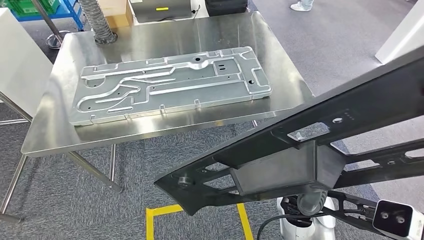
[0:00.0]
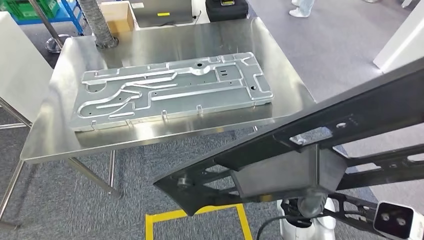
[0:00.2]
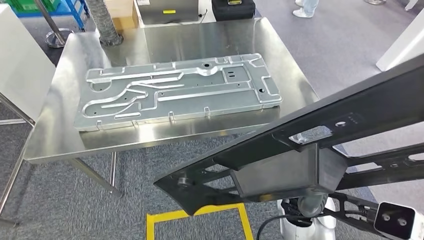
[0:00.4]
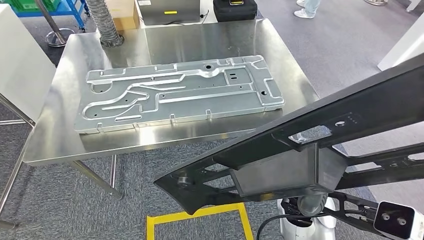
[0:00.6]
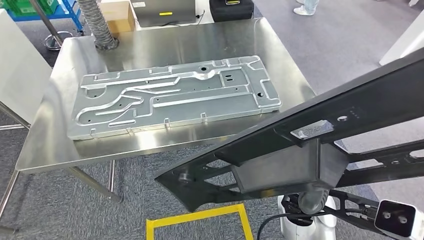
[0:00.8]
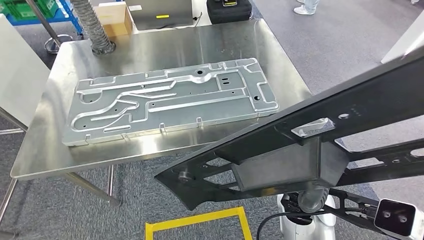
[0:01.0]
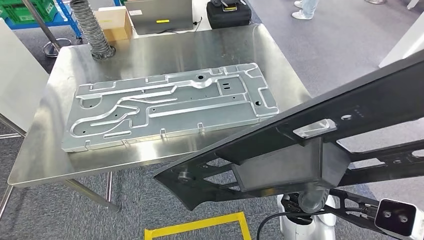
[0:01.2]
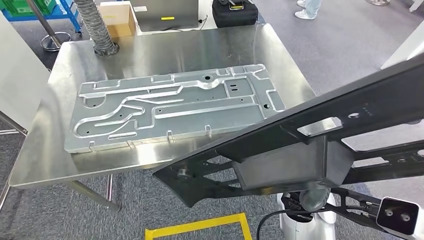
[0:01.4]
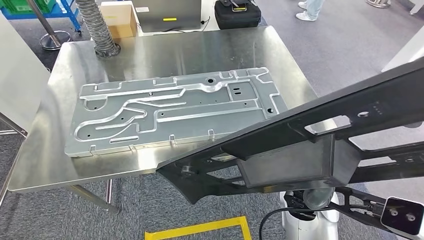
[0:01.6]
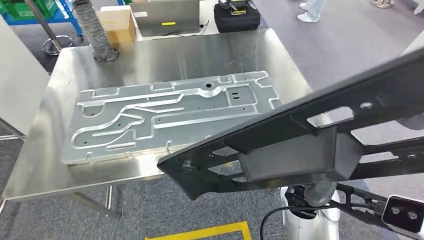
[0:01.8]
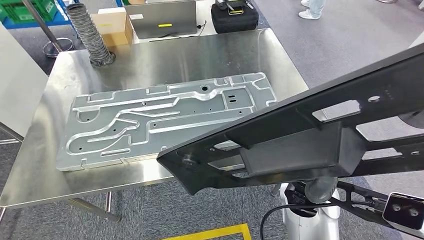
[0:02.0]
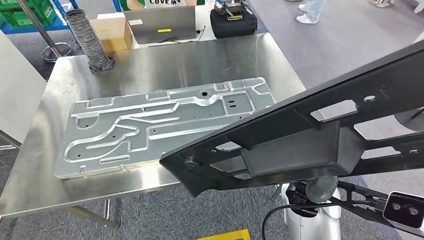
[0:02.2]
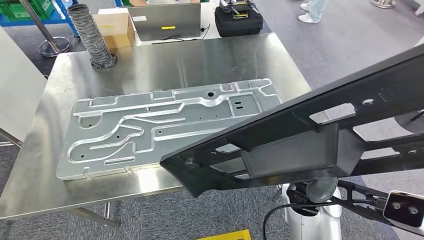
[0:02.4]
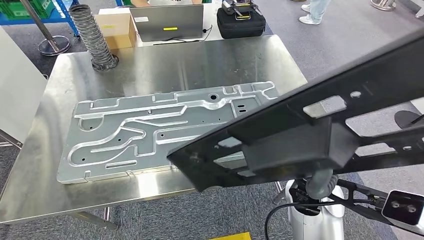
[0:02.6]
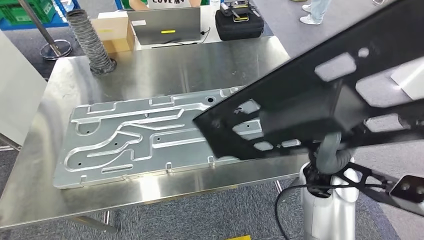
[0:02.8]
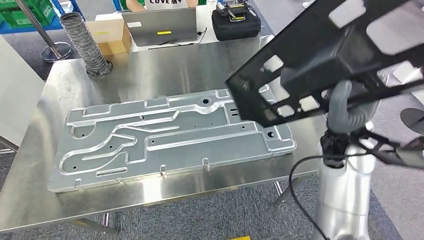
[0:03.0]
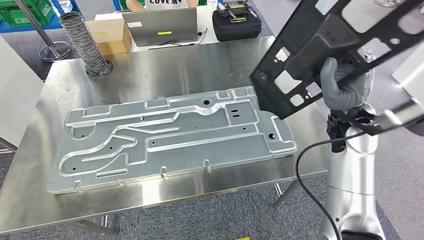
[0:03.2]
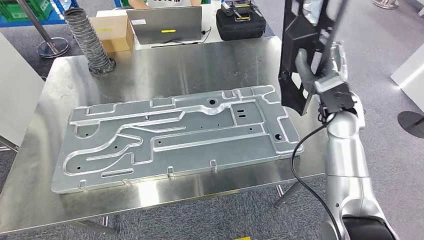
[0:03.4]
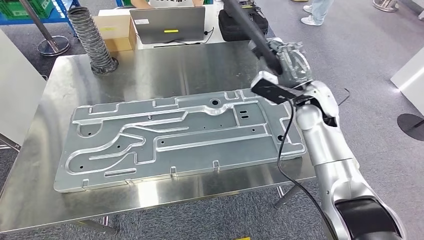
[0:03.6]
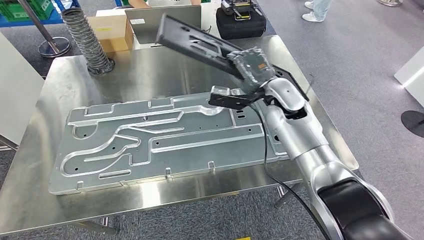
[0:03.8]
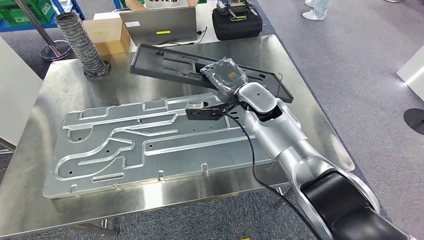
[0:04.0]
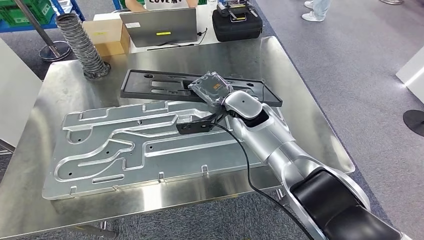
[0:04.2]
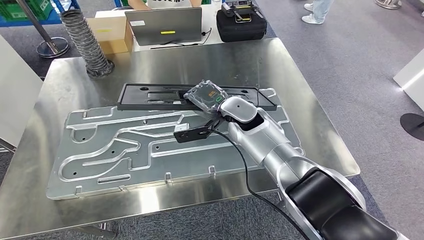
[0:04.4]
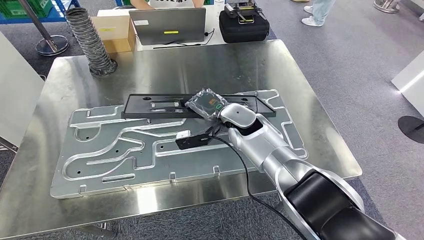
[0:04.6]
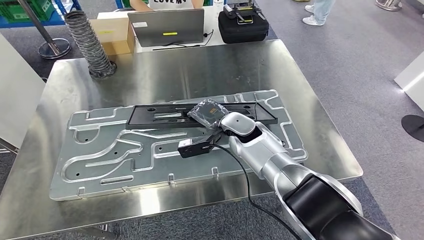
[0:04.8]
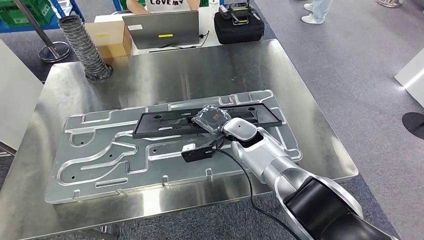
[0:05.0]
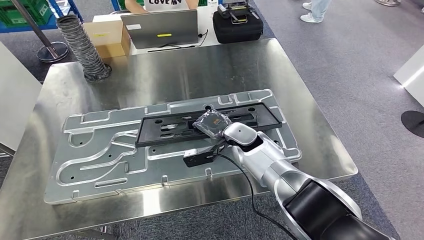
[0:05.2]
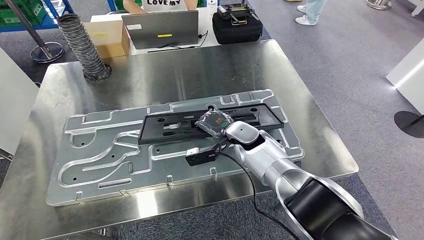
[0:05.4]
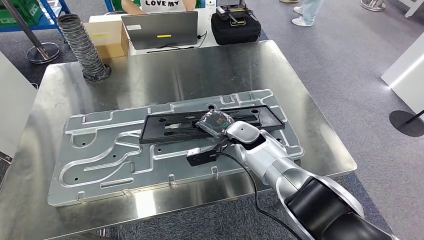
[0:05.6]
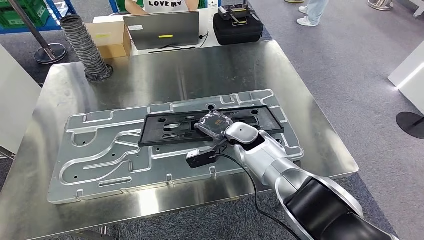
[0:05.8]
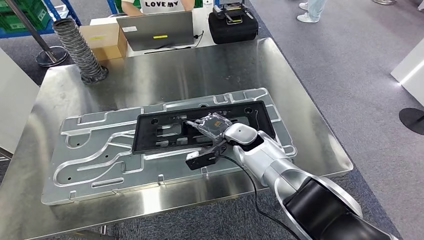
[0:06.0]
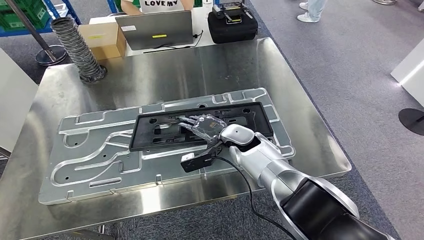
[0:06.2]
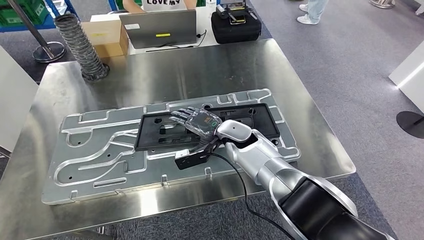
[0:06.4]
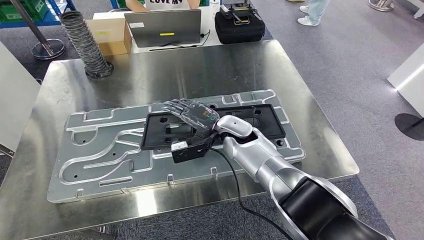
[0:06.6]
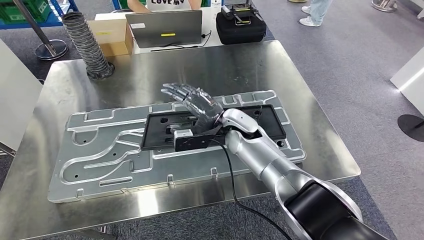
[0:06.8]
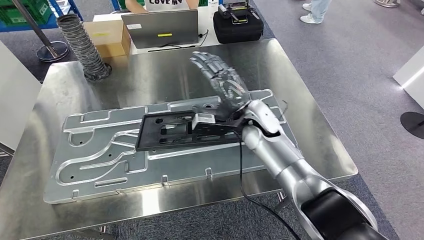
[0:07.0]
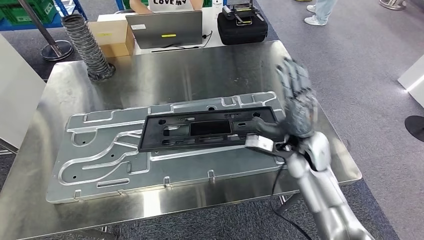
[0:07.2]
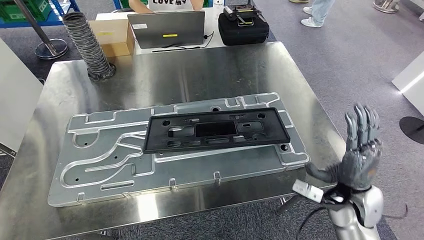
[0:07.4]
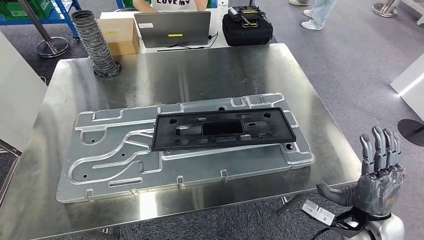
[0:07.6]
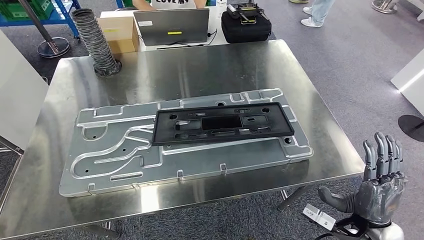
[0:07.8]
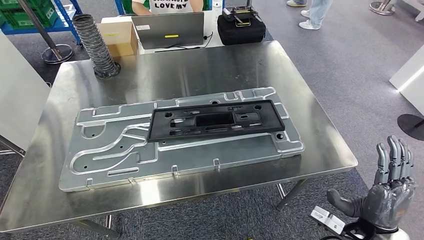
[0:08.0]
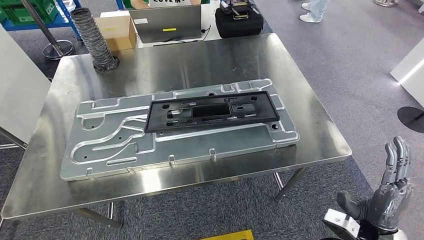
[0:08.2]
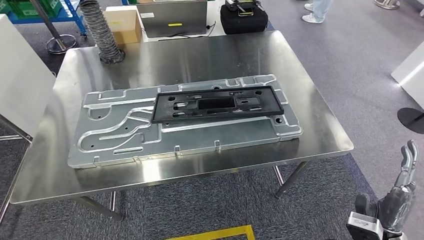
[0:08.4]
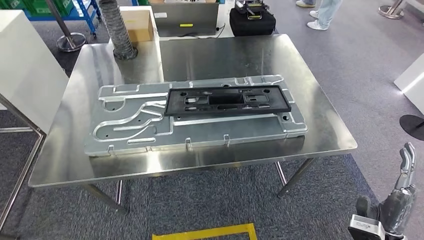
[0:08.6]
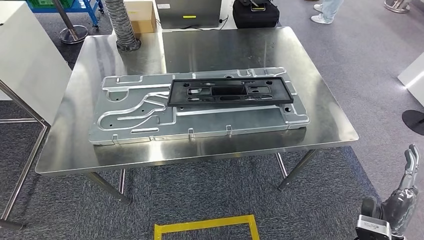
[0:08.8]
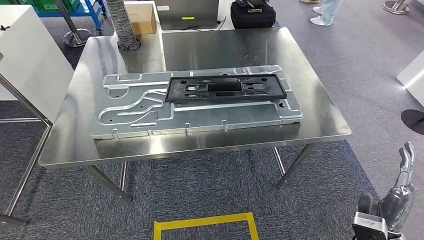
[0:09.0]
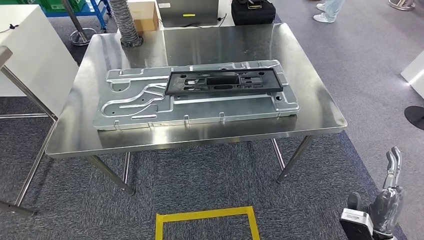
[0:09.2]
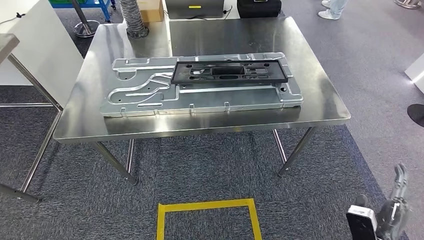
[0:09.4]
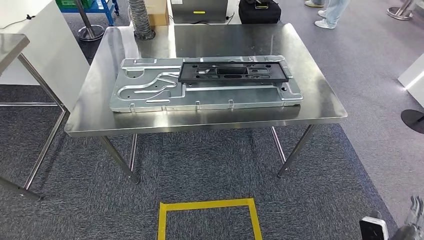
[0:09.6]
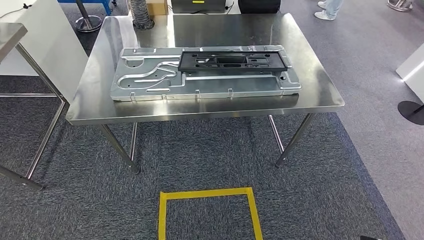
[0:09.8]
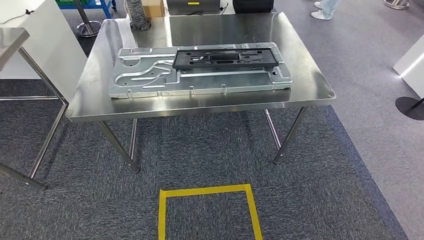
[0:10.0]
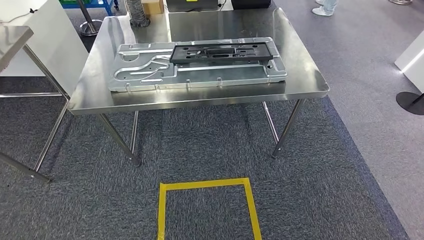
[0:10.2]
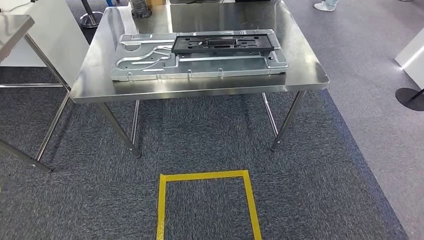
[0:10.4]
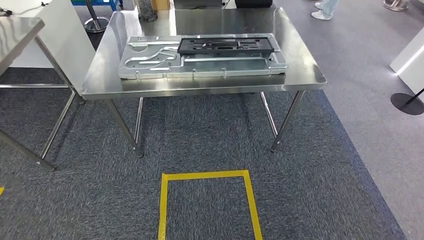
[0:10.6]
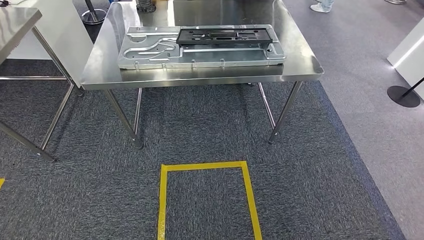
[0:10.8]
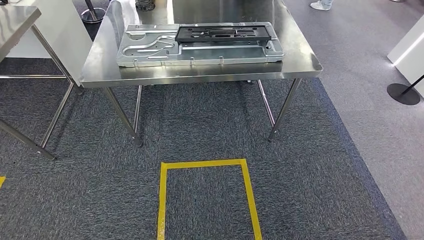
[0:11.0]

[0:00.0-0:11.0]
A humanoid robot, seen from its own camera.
Step, 0:01.0 to 0:07.0: Insert the large material into the corresponding slot on the workbench.

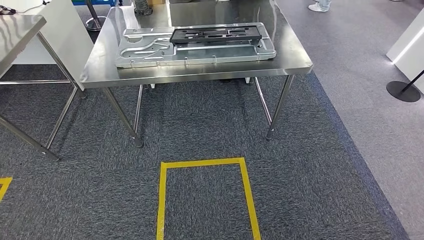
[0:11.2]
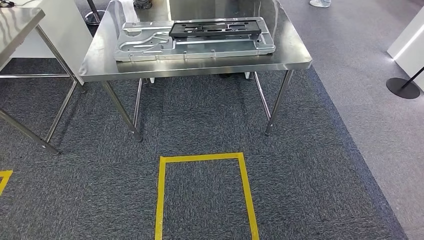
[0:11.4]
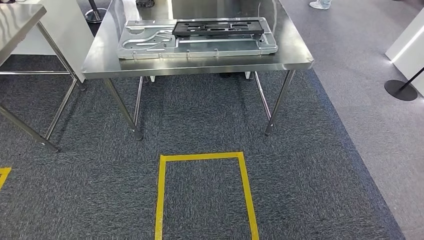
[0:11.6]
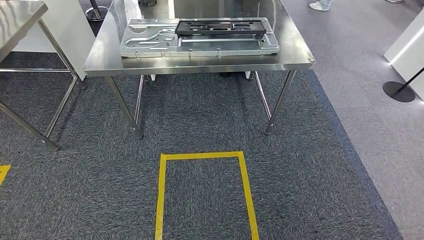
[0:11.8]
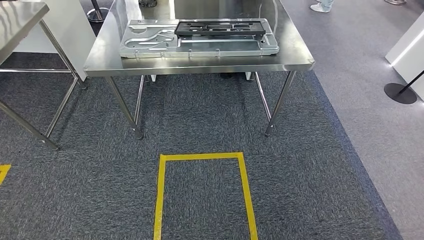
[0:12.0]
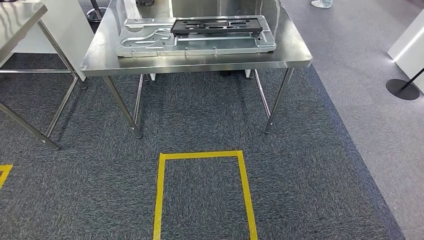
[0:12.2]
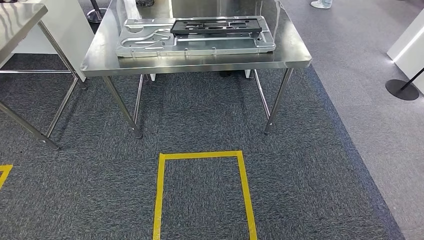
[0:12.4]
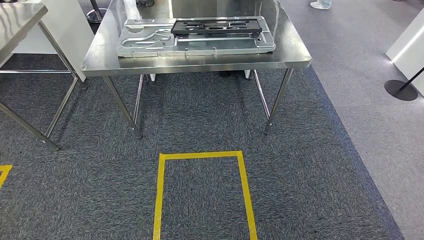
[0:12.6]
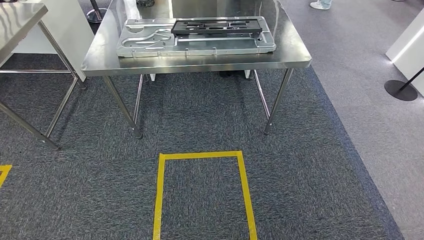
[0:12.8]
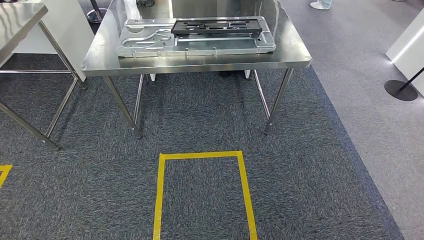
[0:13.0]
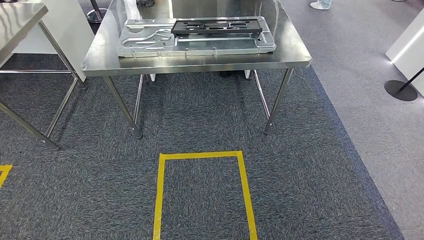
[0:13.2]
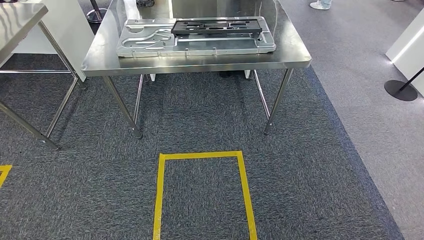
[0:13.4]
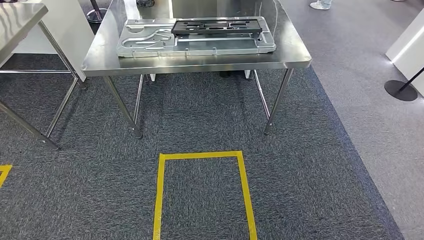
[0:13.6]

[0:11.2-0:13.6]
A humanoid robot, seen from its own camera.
Step, 0:11.2 to 0:13.4: Return to the initial position at the shelf.
0:11.2 to 0:12.4: The hands move only a little.
